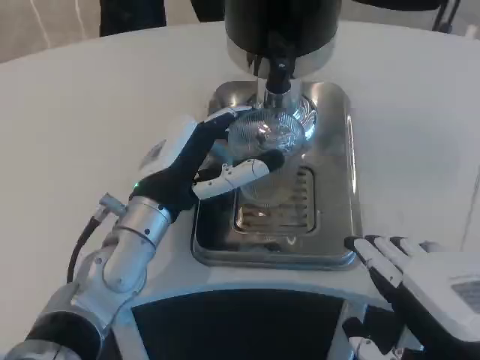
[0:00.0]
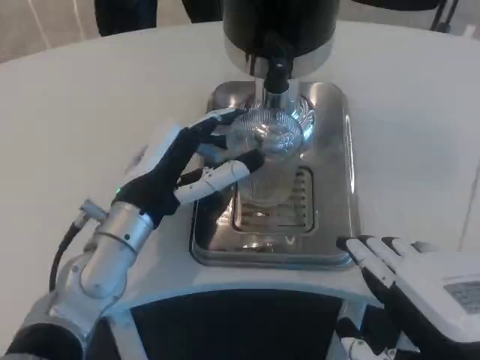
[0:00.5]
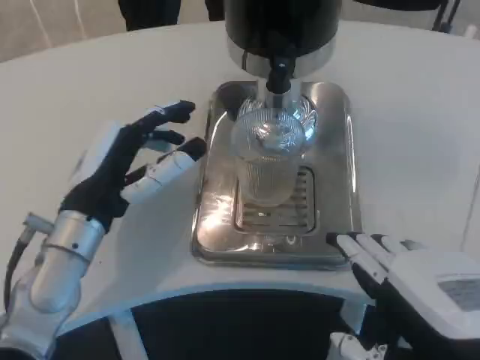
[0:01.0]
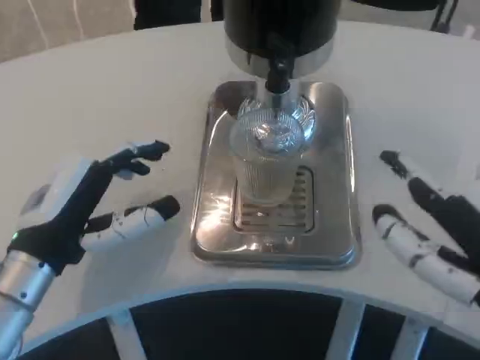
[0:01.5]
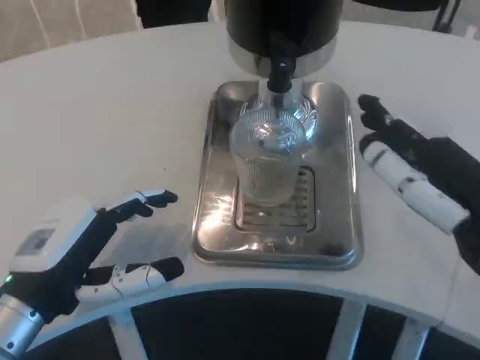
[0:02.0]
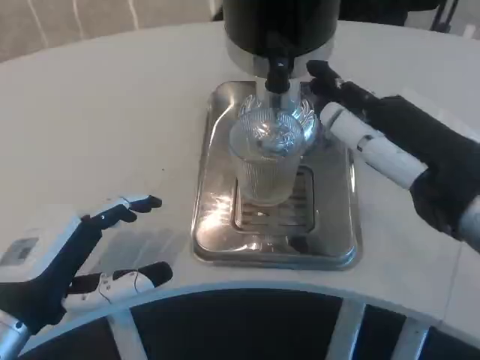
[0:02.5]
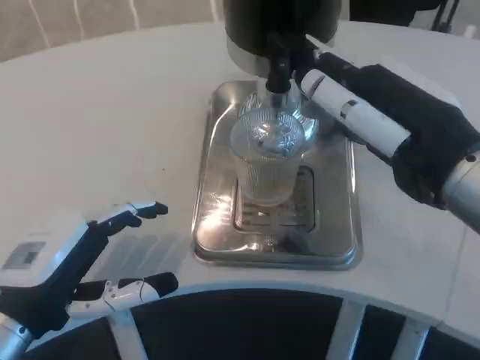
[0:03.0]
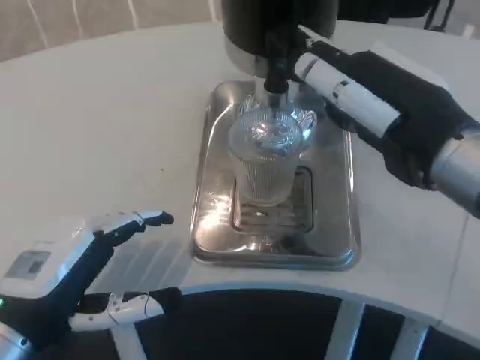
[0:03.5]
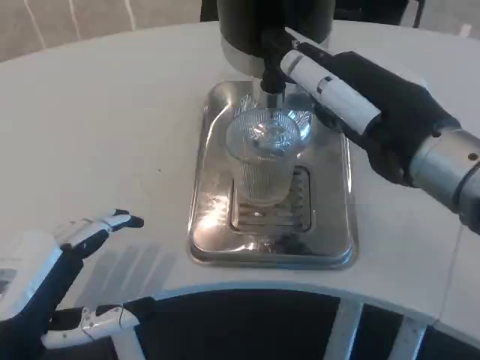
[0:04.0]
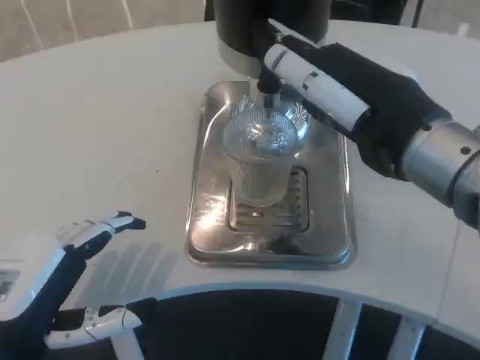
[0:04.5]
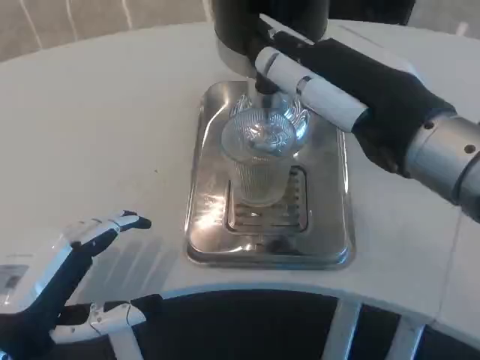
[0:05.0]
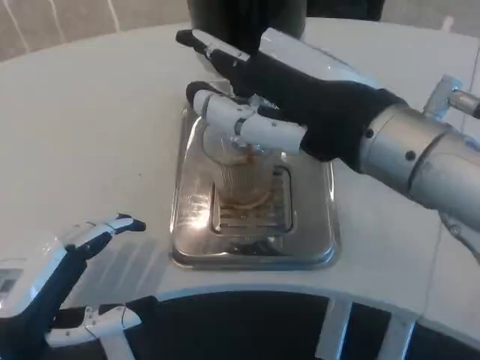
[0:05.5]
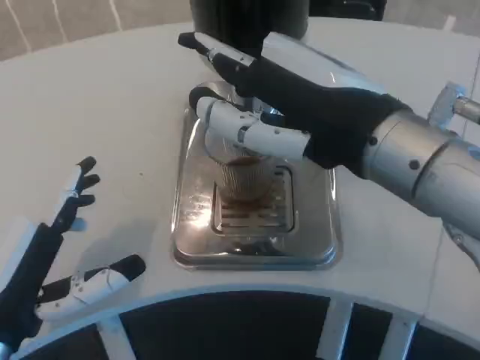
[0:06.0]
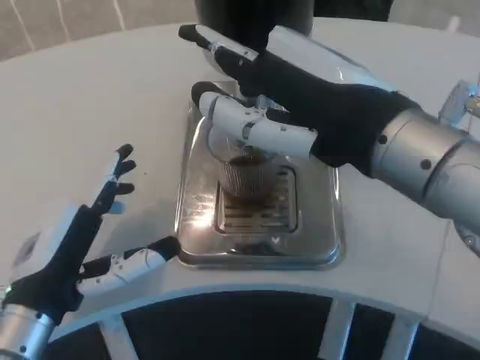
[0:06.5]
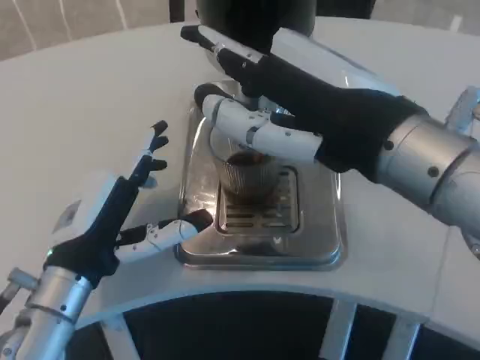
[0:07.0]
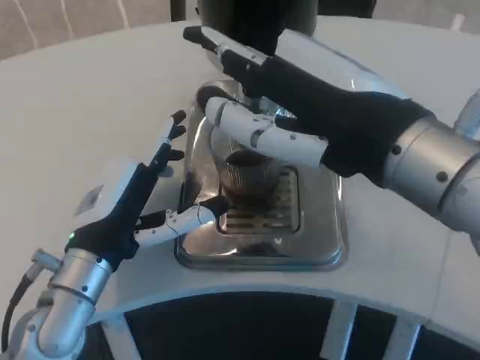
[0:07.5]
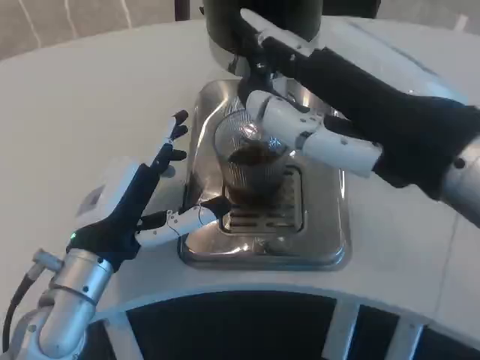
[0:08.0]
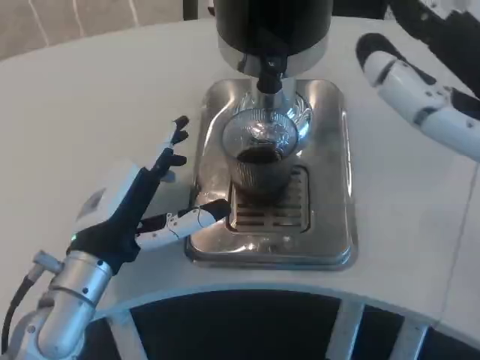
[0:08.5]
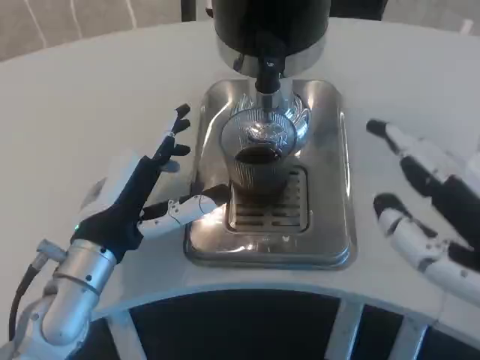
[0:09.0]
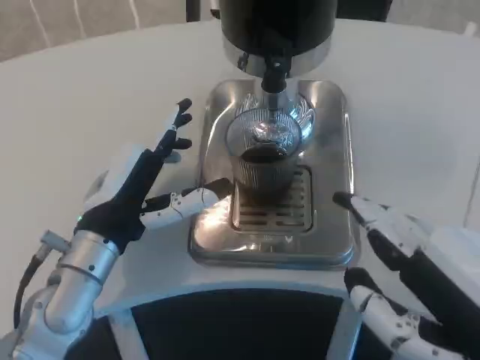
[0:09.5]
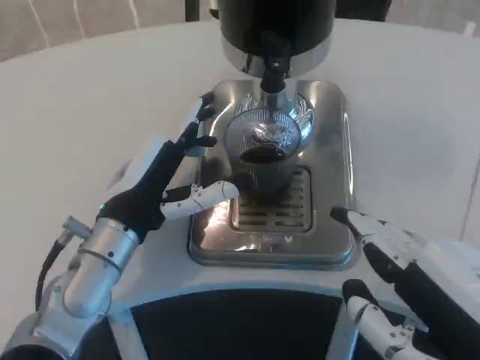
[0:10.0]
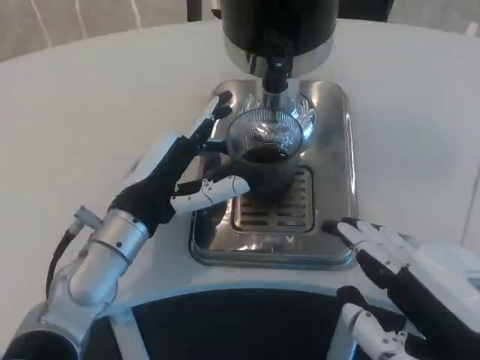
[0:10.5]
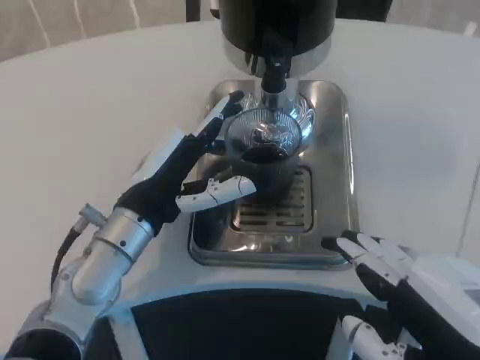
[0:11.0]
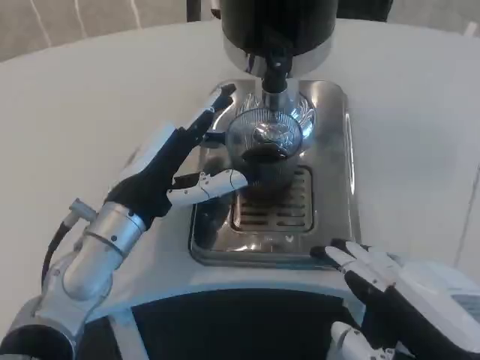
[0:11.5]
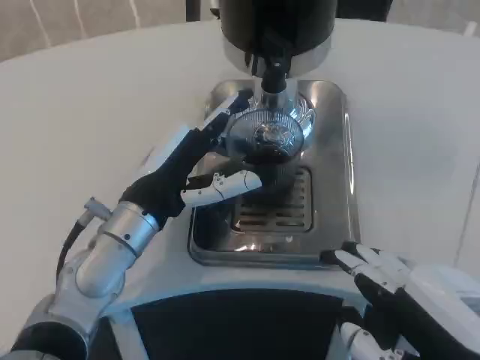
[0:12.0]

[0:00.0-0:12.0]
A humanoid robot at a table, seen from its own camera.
Task of the whole recording: Grasp the cup under the faucet to collect the drink, then remove the cup.
0.0 to 2.0 s: The right hand goes approximately 5 cm forward. The left hand moves to the left and backward, roughly 15 cm.
2.0 to 4.0 s: The right hand goes some 5 cm forward.
6.0 to 8.0 s: The left hand moves forward and to the right, approximately 10 cm; the right hand shifts by roughly 5 cm.
8.0 to 10.0 s: The right hand heads downward and backward, covering roughly 10 cm.
10.0 to 12.0 s: The hands stay close to where they were, moving slightly.

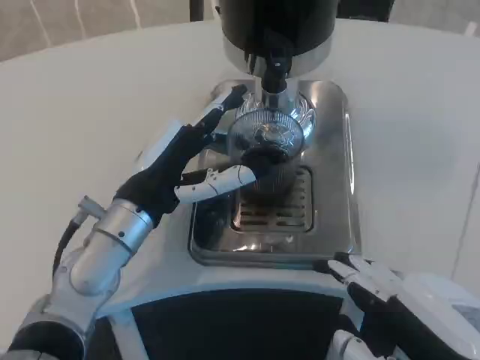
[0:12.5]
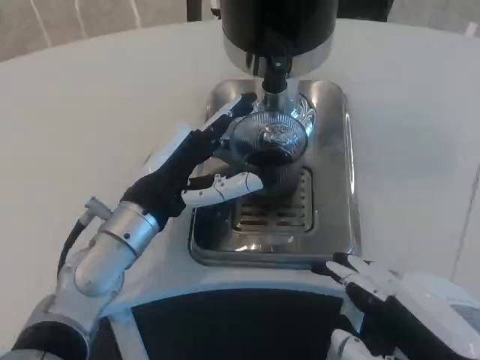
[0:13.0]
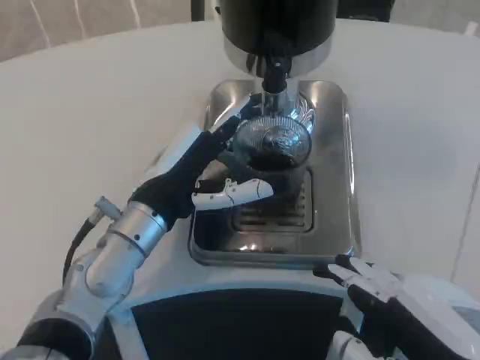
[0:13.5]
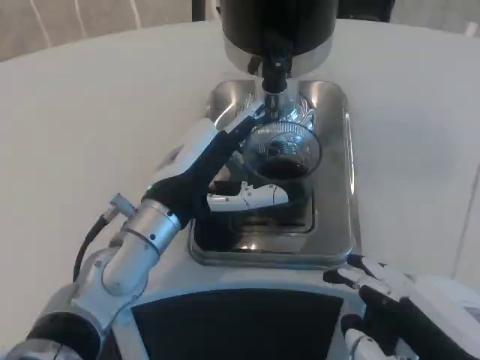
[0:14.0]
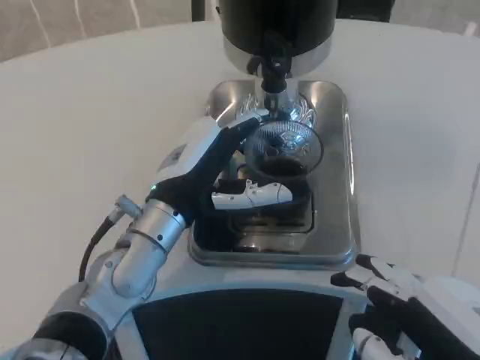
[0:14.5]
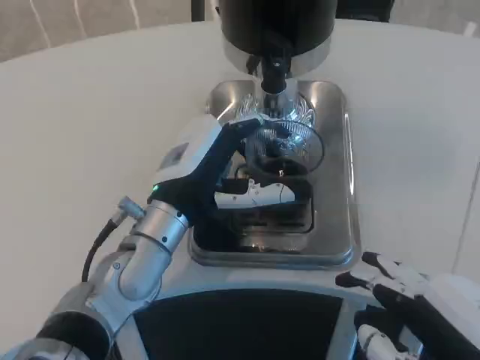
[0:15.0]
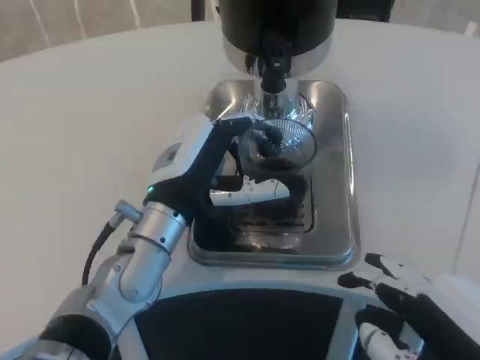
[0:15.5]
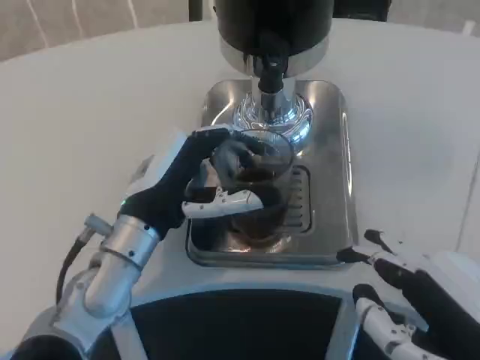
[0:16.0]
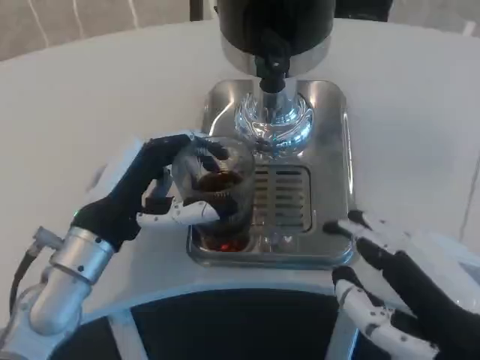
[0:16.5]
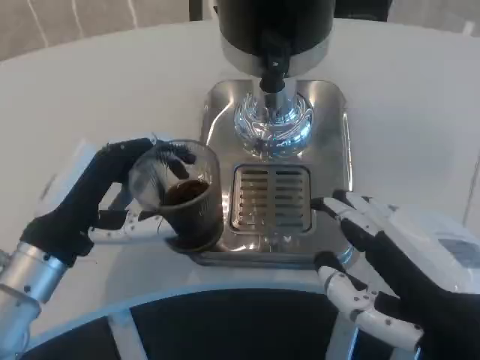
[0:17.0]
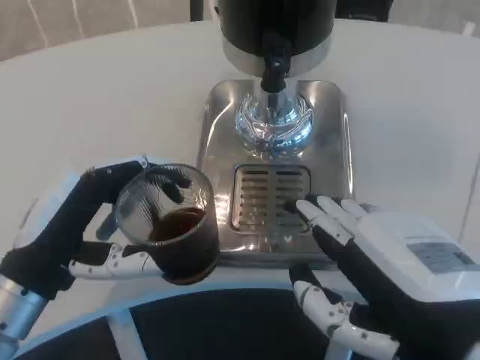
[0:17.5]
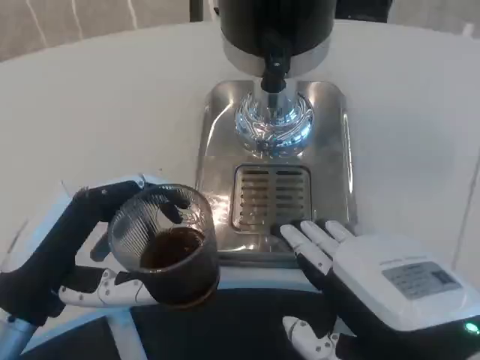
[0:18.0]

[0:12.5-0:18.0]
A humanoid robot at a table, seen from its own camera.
Task of the whole recording: Grasp the cup under the faucet to collect the drink, then remove the cup.
12.5 to 14.5 s: The hands stay close to where they were, moving slightly.
16.0 to 18.0 s: The left hand goes some 15 cm backward and to the left.

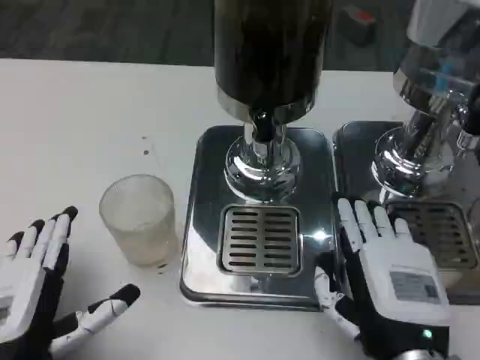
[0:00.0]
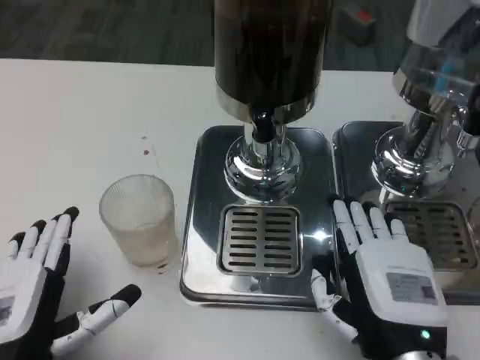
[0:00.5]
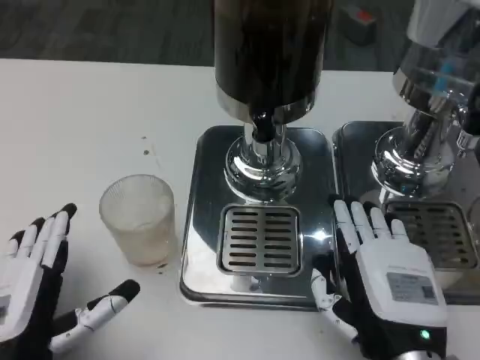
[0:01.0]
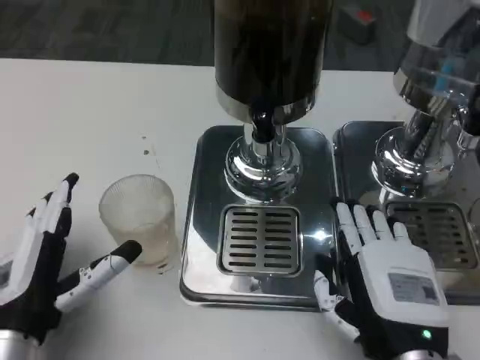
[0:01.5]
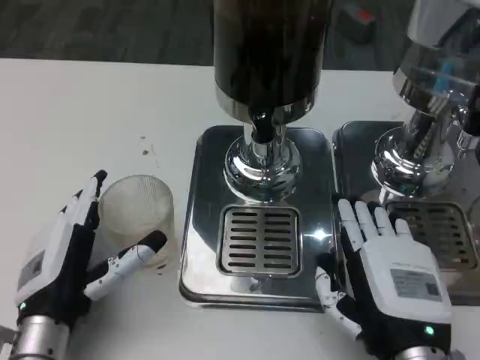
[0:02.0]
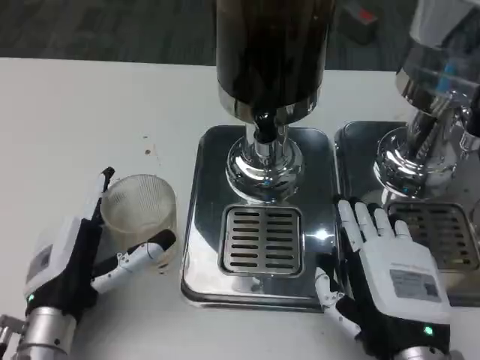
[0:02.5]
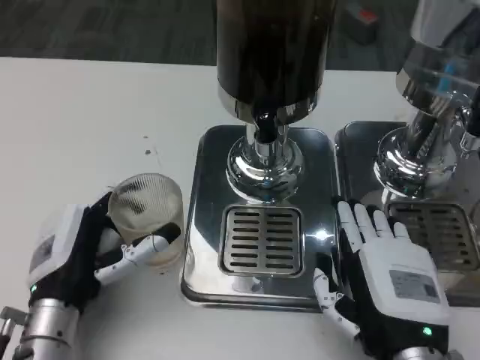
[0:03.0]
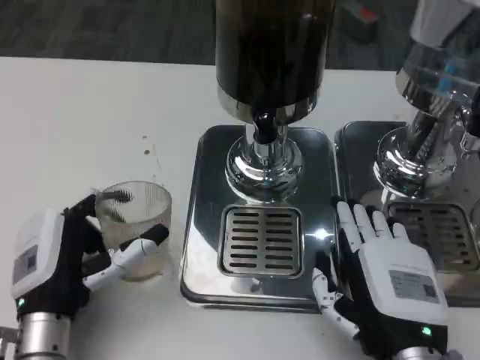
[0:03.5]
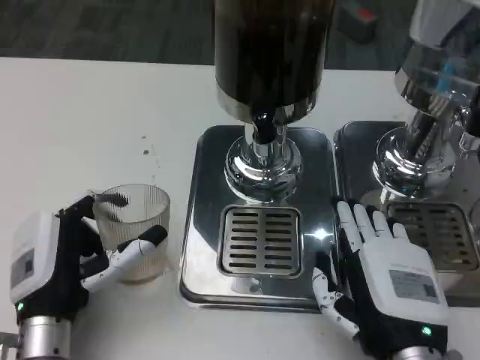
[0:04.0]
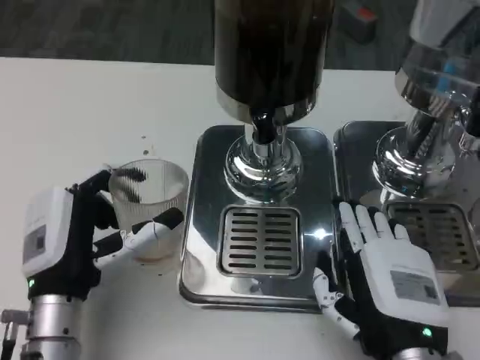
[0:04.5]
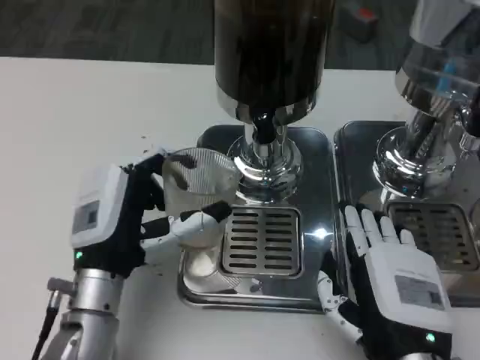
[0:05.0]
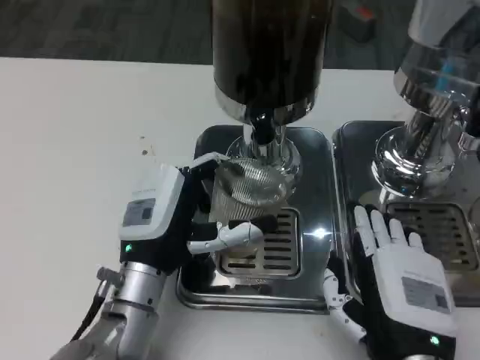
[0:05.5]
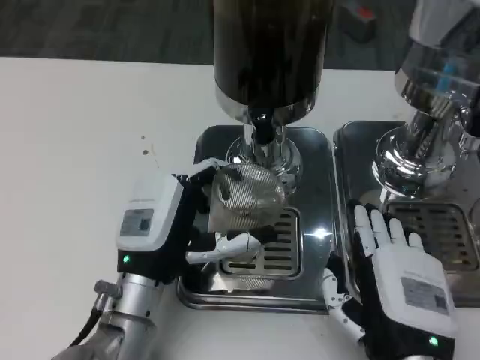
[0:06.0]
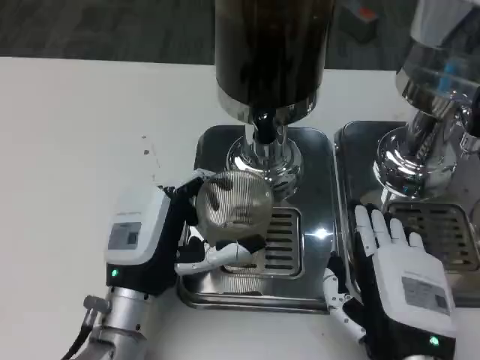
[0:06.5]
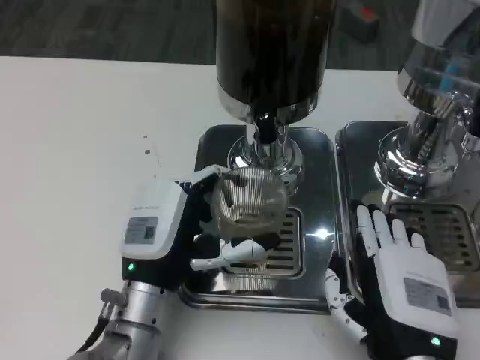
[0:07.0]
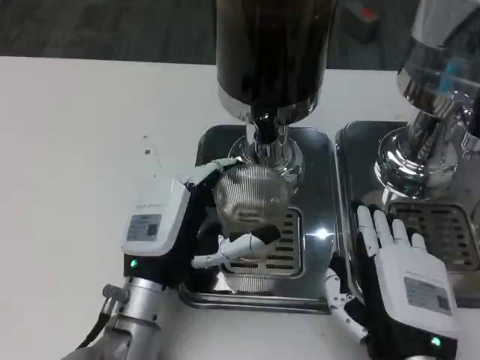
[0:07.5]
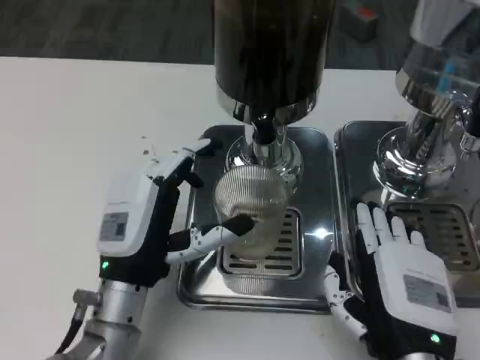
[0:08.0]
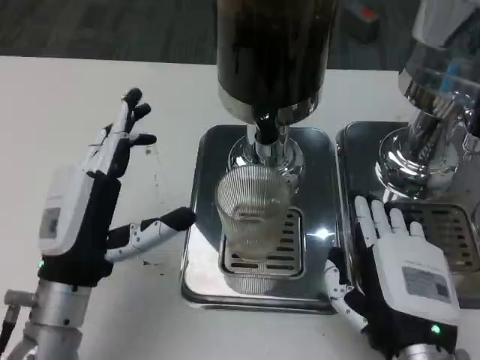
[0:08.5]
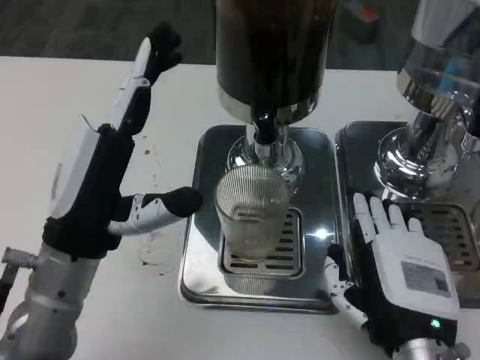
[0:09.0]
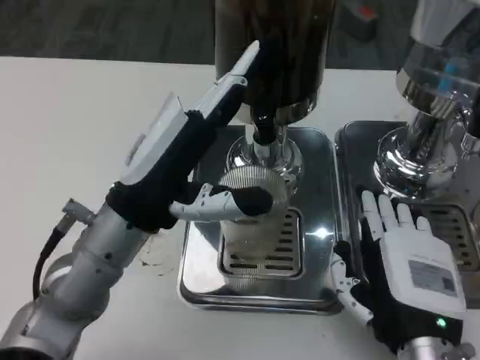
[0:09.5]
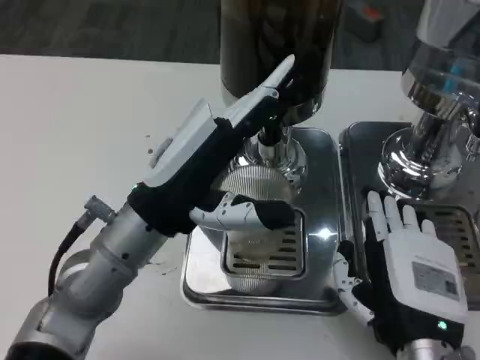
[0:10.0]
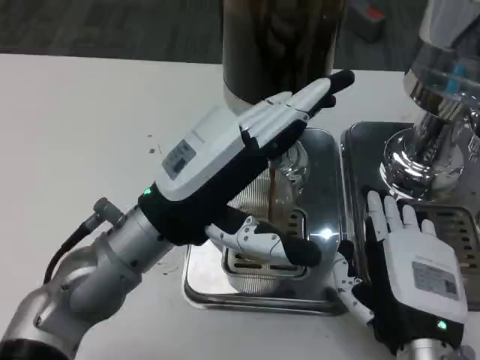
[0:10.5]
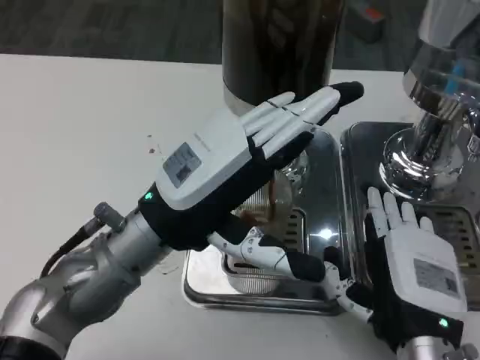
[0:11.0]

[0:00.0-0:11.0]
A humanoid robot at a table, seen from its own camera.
Task of the whole recording: Grasp the cup under the faucet to collect the drink, then remove the cup.
0.0 to 2.0 s: The left hand shifts about 5 cm forward.
2.0 to 3.5 s: The hands make only small movements.
3.5 to 5.5 s: The left hand moves to the right and forward, about 10 cm.
5.5 to 7.5 s: The hands make only small movements.
7.5 to 9.0 s: The left hand moves upward and to the left, approximately 10 cm.
9.0 to 11.0 s: The left hand changes place by about 5 cm.
